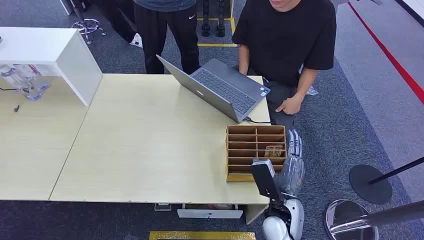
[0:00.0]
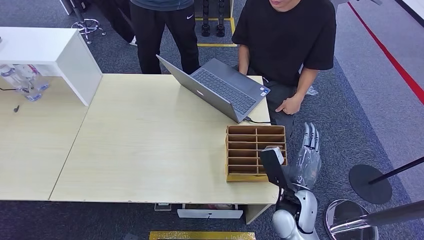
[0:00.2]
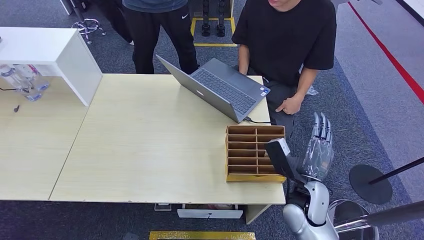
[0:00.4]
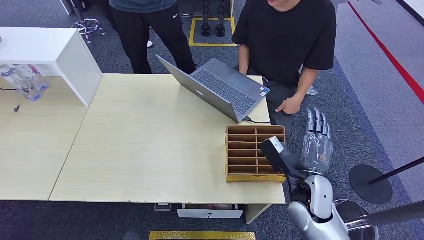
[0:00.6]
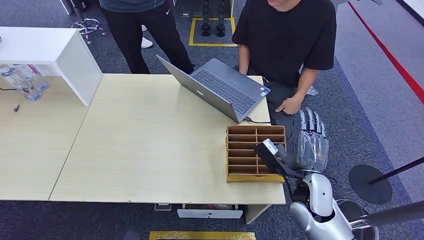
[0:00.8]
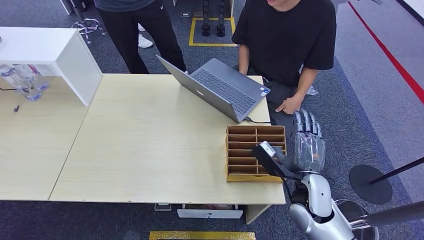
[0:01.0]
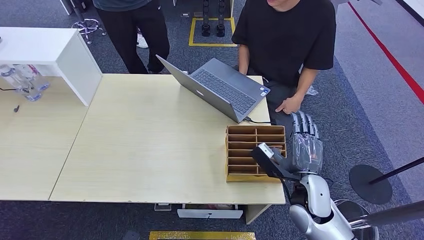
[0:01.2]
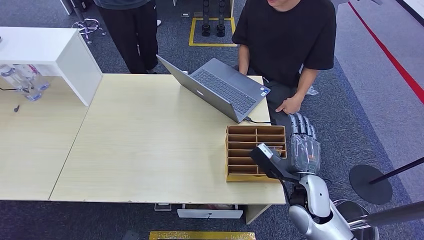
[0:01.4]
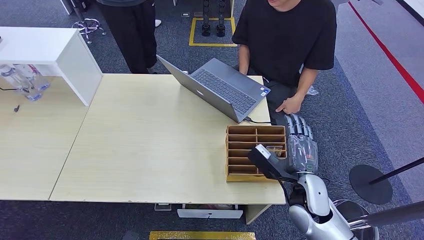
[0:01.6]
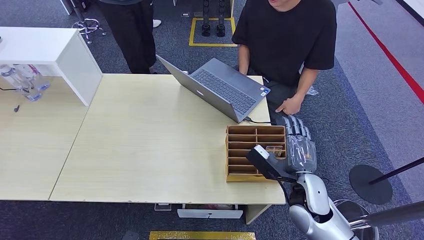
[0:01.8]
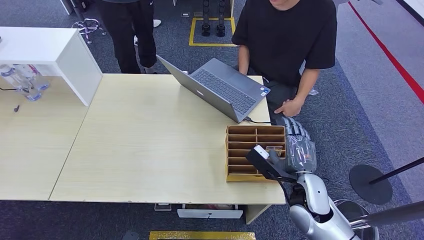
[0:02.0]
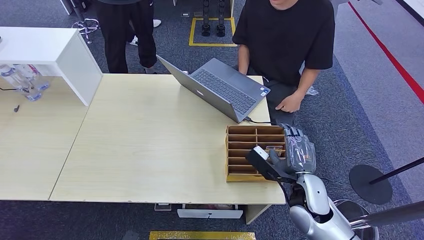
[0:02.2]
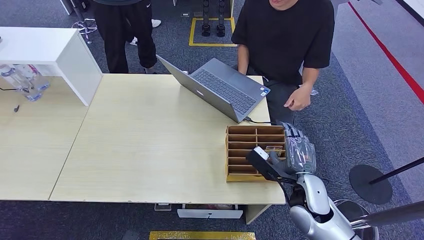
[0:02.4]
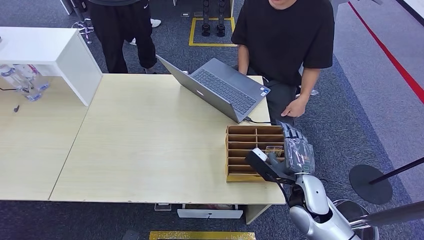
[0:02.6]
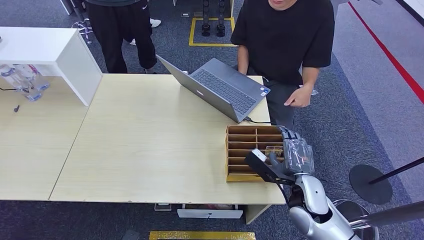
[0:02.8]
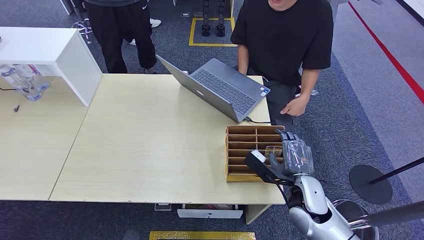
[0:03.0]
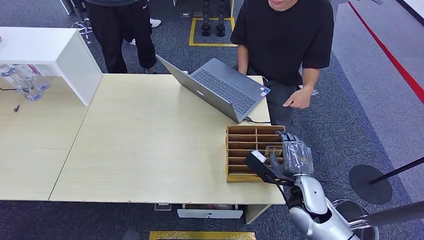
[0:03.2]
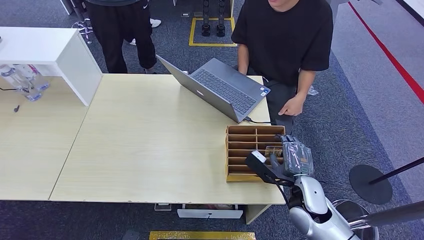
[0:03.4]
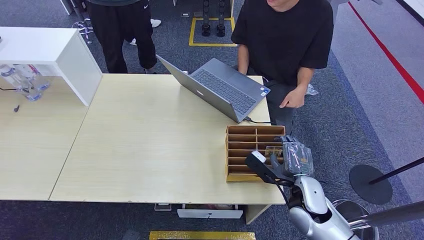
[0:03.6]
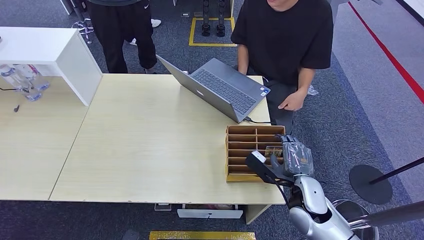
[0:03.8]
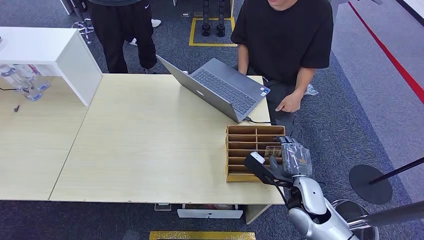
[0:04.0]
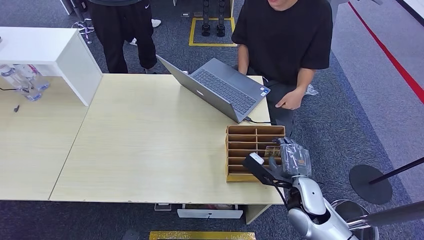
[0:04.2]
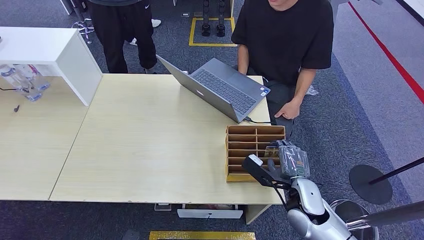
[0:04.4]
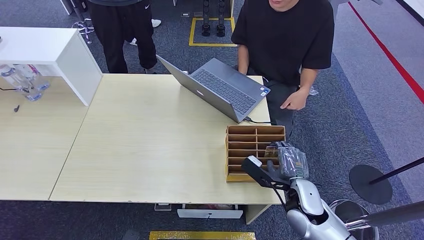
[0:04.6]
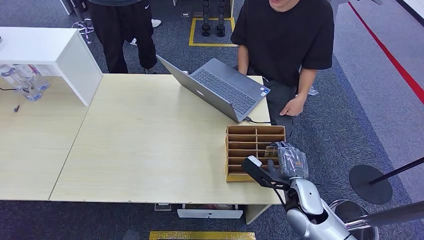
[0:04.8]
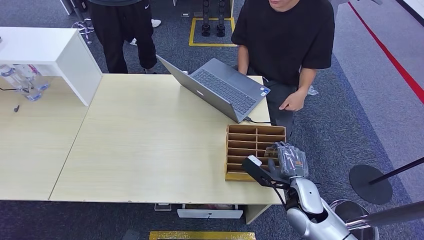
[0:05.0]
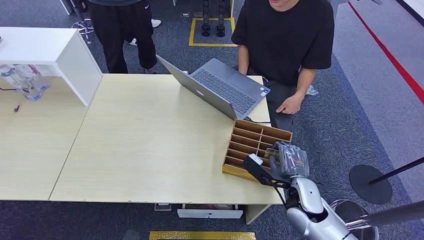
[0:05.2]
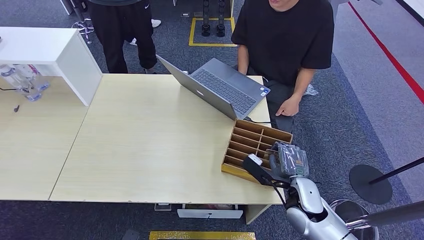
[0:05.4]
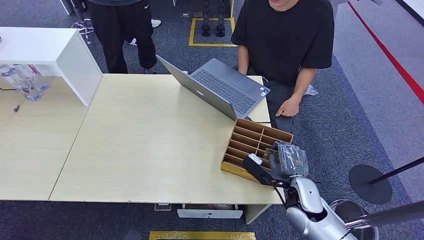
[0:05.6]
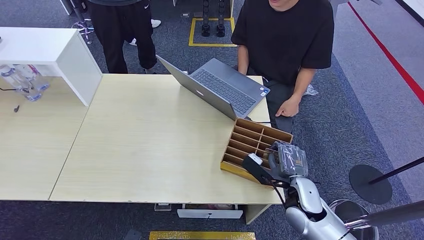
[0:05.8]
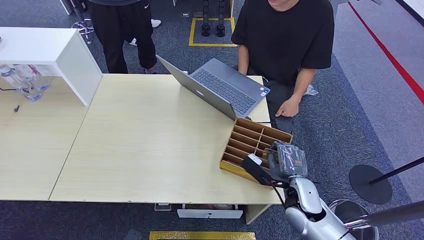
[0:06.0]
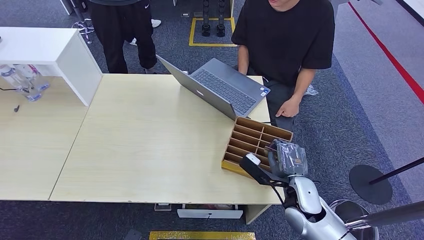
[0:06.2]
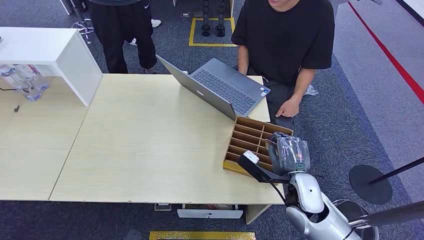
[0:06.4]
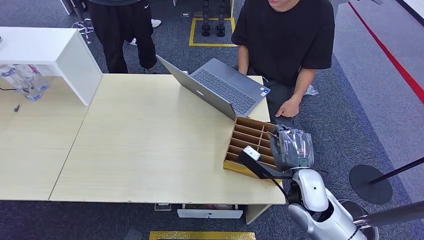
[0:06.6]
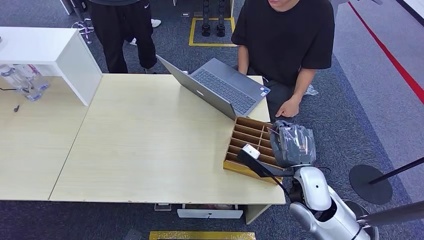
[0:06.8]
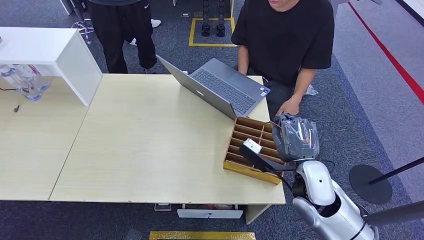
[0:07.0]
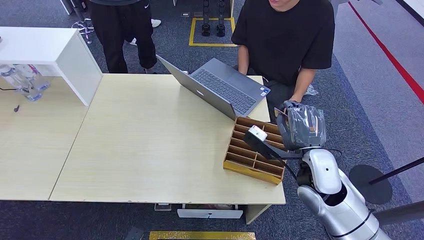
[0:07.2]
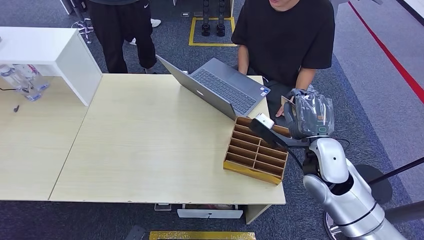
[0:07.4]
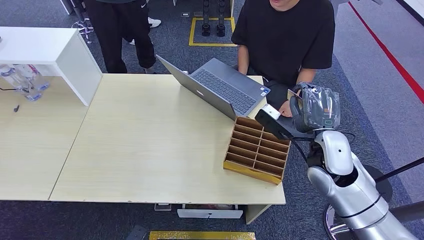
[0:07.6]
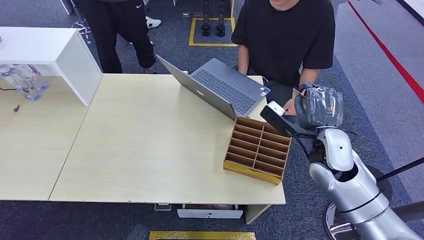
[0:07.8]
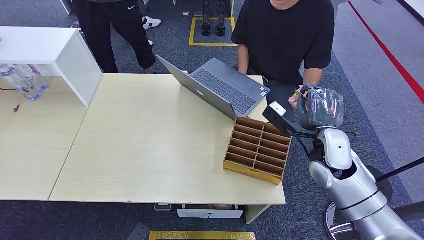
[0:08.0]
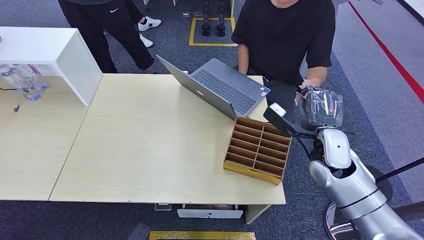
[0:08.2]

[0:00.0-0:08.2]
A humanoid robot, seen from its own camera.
Step, 0:00.0 to 0:07.0: Pick up the room card from the card holder.
Step, 0:07.2 to 0:08.2: Hand the room card to the target.
0:01.6 to 0:05.0: The hands move only a little.
0:05.0 to 0:06.6: The right hand shifts approximately 5 cm upward.
0:06.6 to 0:08.2: The right hand goes some 10 cm forward, to the right and upward.
